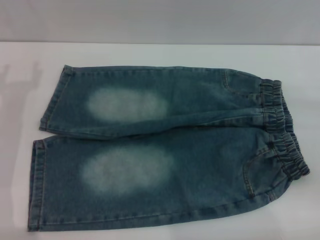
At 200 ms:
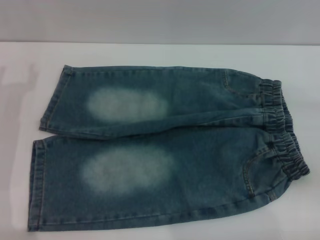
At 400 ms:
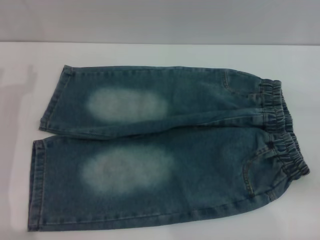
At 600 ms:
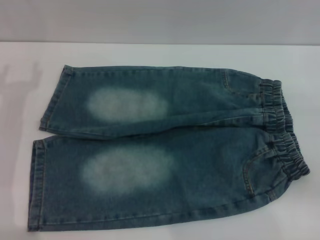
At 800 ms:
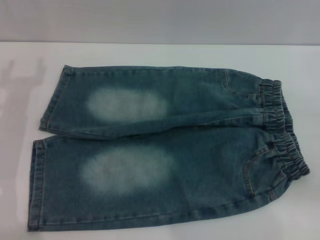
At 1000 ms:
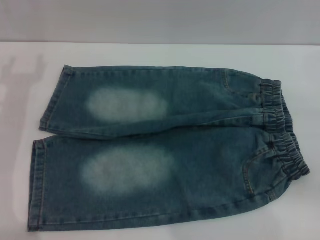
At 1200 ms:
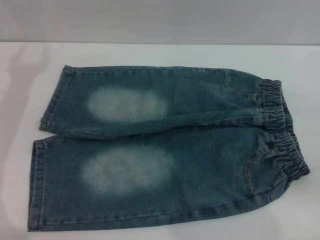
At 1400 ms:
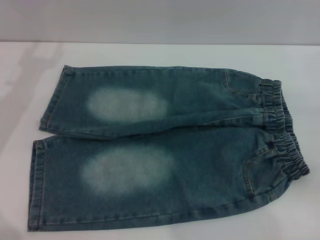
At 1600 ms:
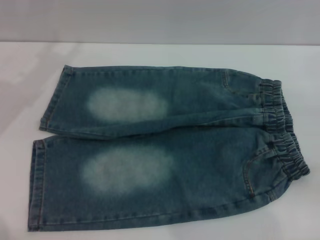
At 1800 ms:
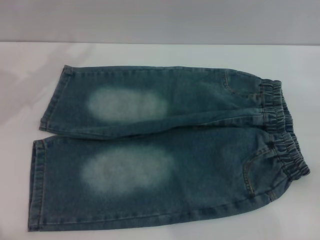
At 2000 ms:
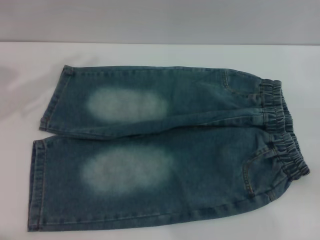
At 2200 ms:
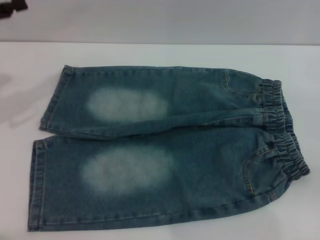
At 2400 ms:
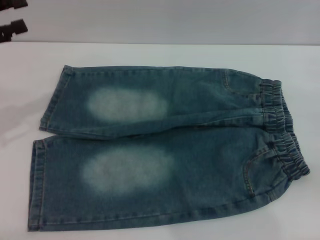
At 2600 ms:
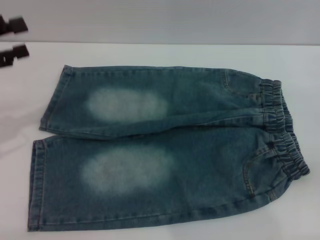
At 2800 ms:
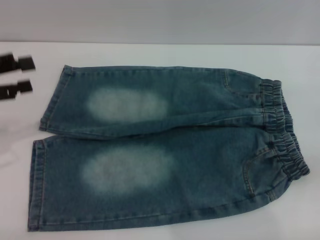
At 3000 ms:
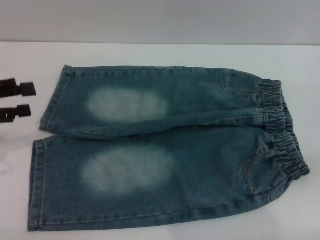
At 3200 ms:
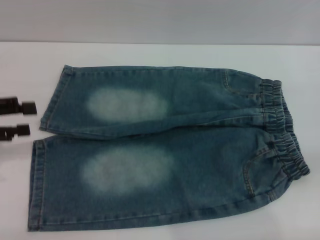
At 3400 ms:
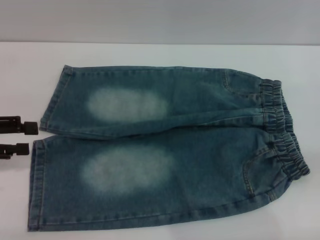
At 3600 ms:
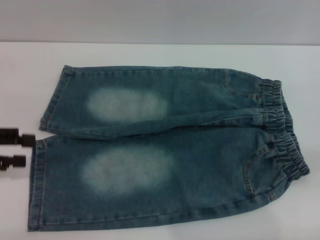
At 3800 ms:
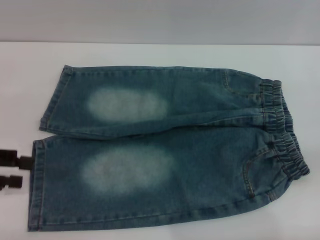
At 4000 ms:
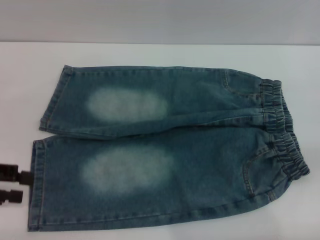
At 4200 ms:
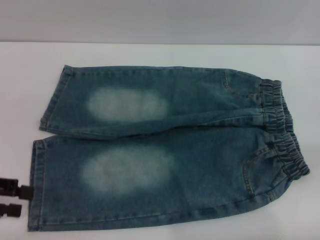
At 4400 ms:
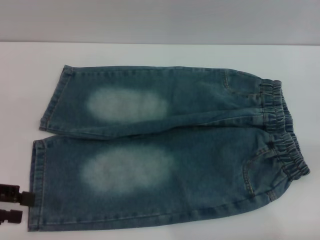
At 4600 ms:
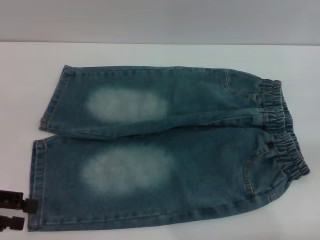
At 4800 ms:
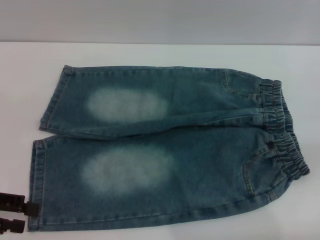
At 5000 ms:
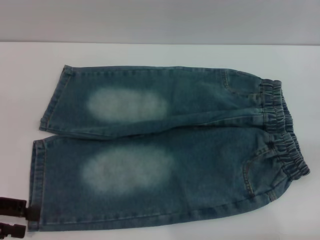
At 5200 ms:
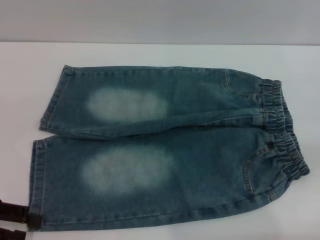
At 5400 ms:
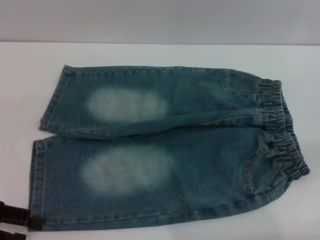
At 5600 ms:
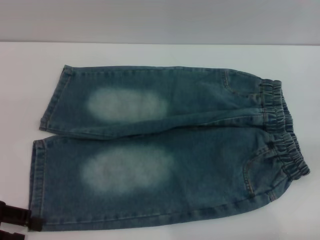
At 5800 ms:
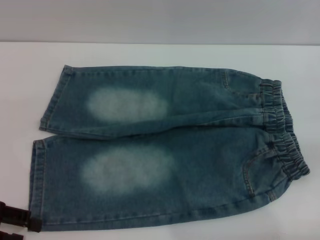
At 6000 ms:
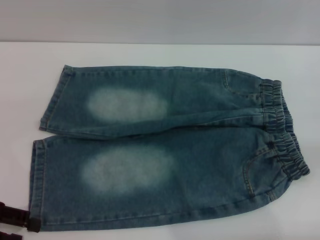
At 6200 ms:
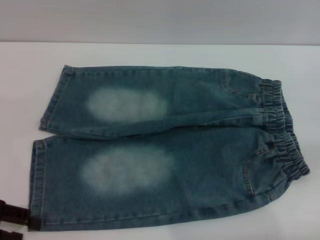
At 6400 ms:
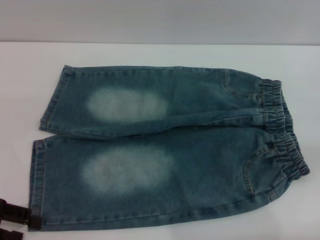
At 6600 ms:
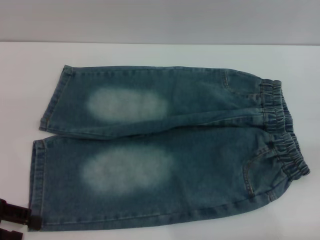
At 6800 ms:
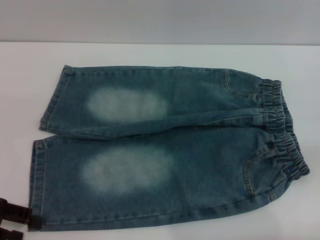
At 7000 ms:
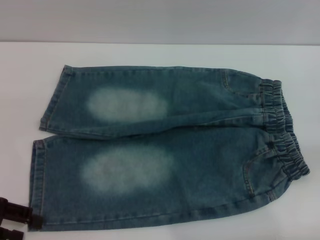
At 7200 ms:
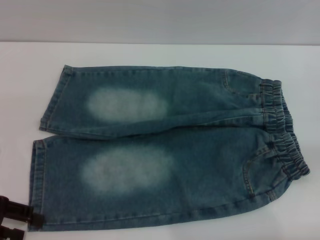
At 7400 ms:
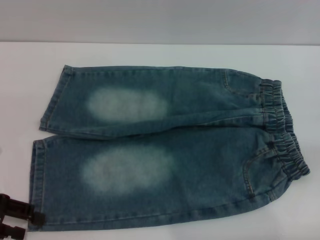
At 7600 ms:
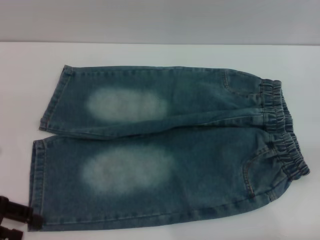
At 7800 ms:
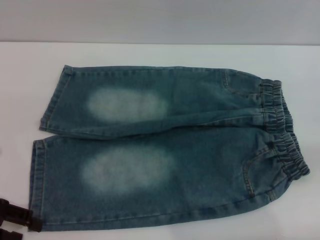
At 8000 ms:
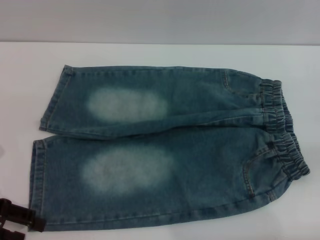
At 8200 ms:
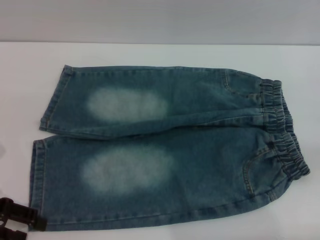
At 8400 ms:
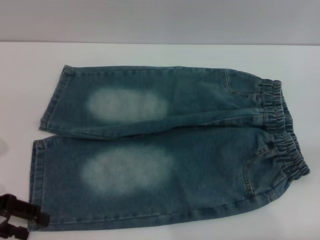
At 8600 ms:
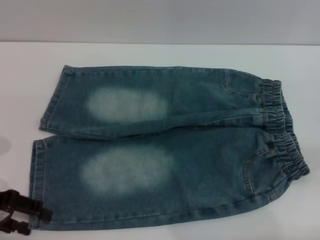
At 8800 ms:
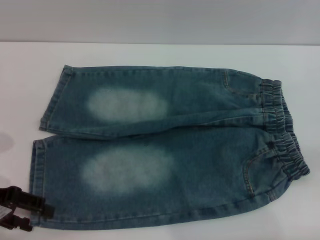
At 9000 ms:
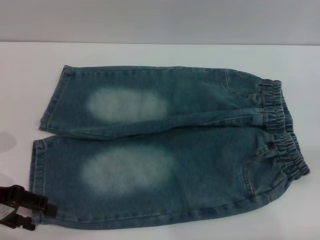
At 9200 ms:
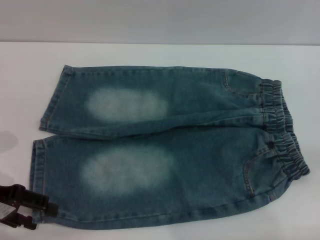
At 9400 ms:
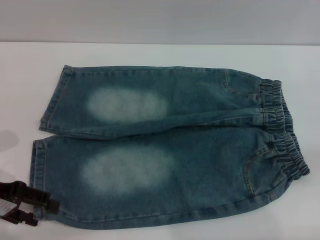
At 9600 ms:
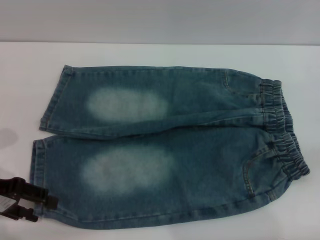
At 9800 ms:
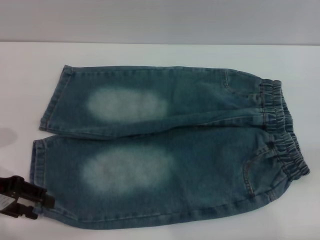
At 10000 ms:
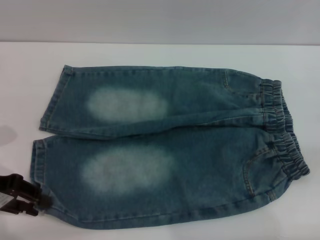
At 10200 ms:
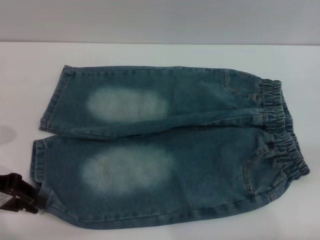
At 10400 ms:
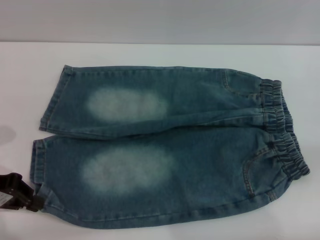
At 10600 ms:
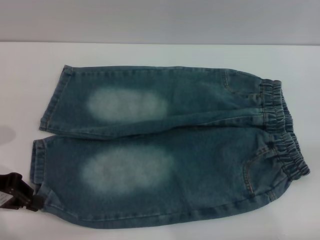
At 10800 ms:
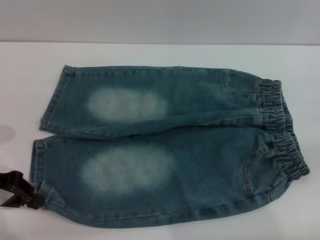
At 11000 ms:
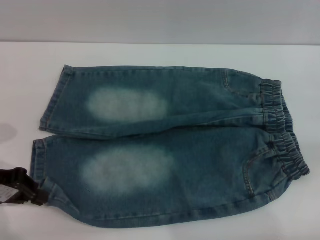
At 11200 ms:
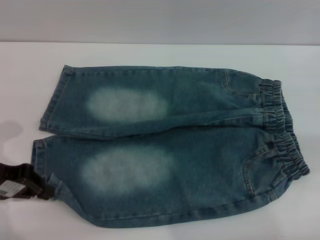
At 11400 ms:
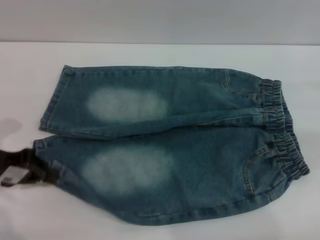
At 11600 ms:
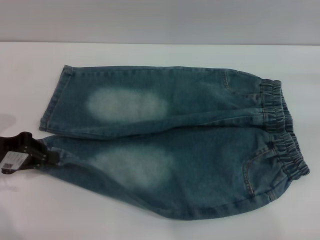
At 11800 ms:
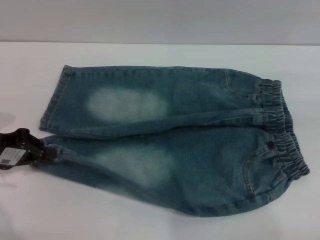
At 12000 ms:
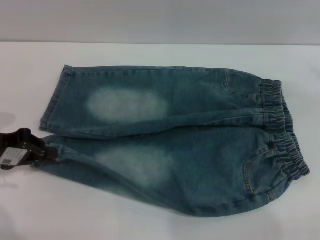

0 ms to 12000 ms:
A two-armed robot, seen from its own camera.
1600 ms to 3000 ms: The left gripper goes approximately 10 cm backward.
3000 ms to 4400 ms: The left gripper goes approximately 5 cm backward.
4400 ms to 6000 ms: The grippers make only small movements.
7600 ms to 9000 ms: There are only small adjustments of the grippers.
9000 ms to 10400 ms: The left gripper closes its fingers.
10400 ms to 12000 ms: The right gripper shifts approximately 10 cm upward and forward.

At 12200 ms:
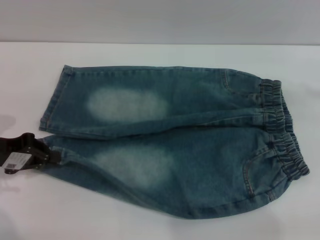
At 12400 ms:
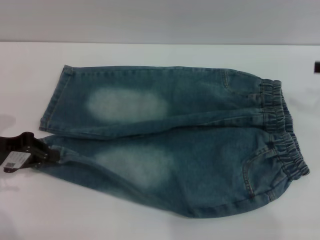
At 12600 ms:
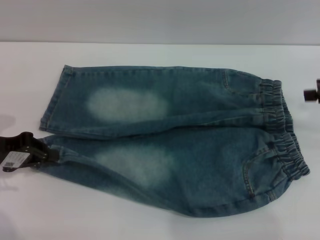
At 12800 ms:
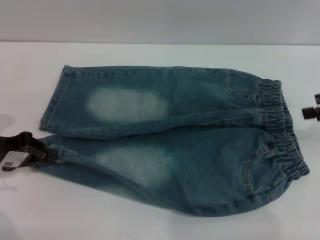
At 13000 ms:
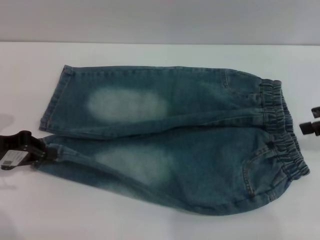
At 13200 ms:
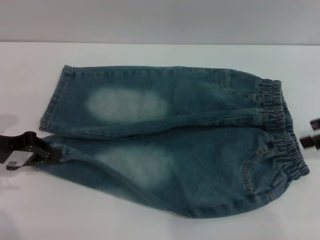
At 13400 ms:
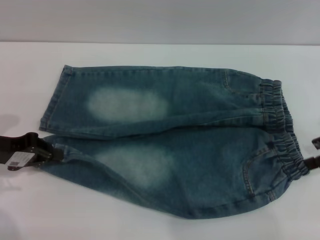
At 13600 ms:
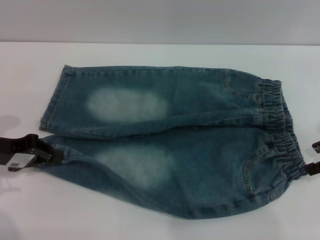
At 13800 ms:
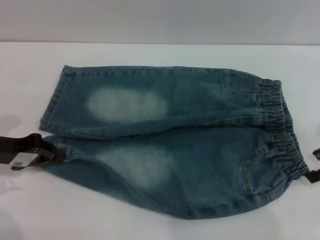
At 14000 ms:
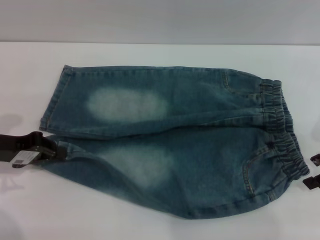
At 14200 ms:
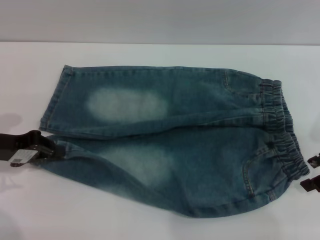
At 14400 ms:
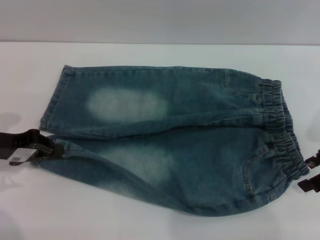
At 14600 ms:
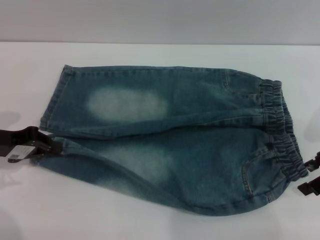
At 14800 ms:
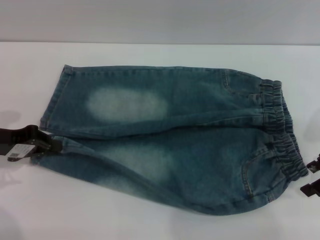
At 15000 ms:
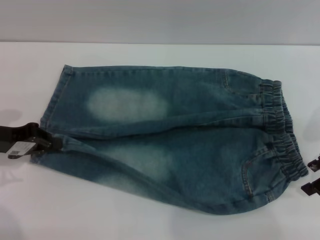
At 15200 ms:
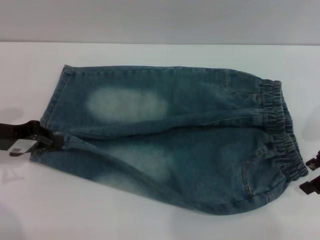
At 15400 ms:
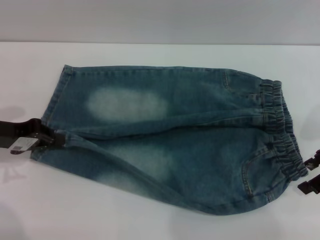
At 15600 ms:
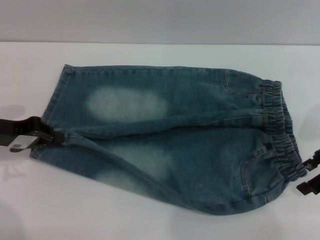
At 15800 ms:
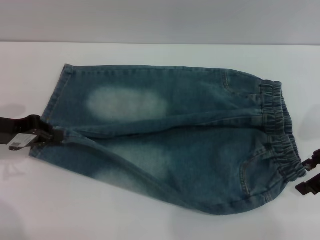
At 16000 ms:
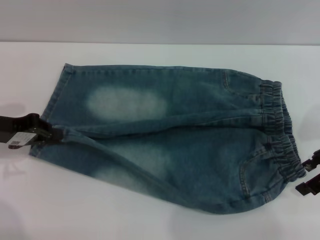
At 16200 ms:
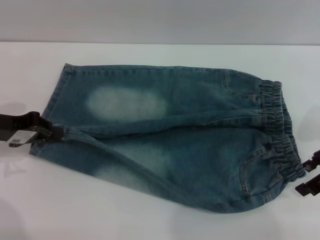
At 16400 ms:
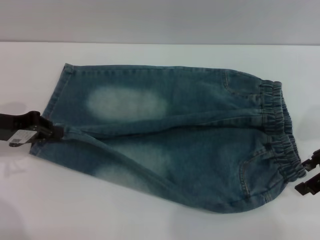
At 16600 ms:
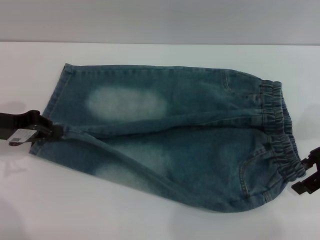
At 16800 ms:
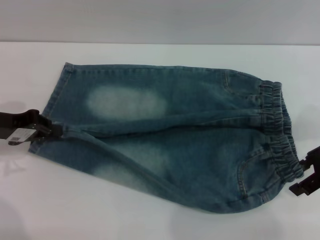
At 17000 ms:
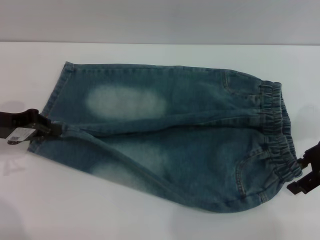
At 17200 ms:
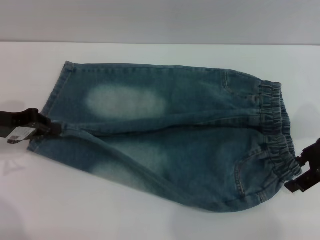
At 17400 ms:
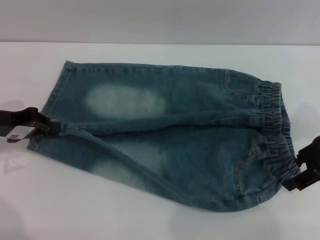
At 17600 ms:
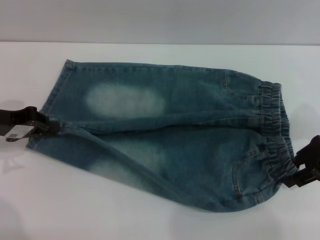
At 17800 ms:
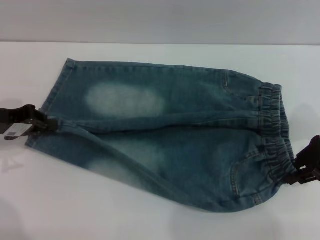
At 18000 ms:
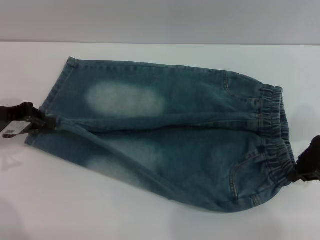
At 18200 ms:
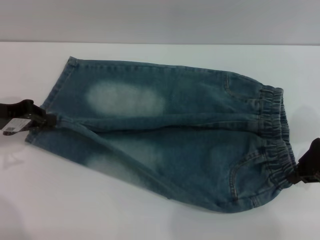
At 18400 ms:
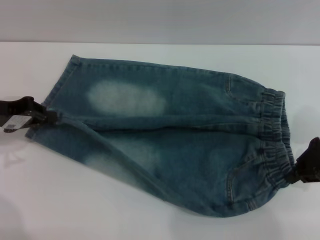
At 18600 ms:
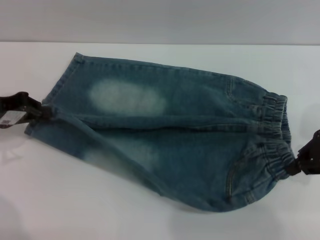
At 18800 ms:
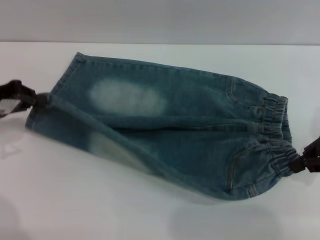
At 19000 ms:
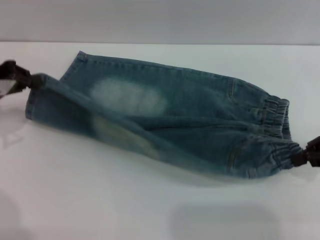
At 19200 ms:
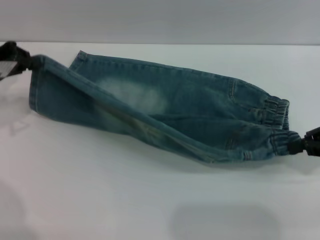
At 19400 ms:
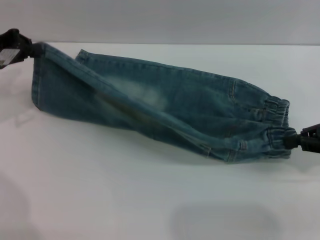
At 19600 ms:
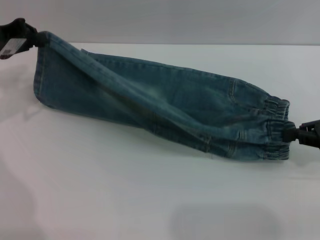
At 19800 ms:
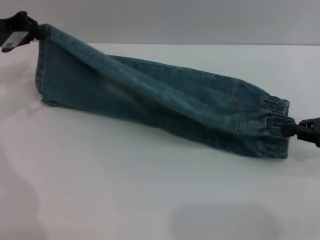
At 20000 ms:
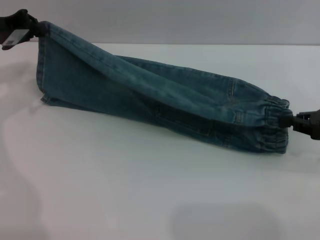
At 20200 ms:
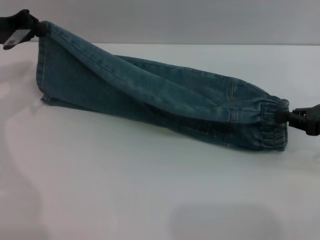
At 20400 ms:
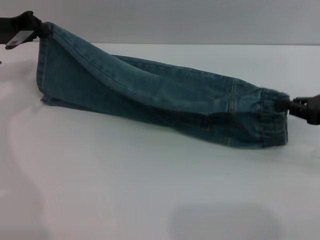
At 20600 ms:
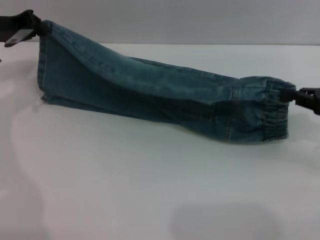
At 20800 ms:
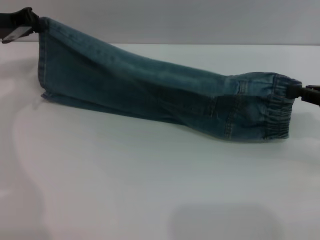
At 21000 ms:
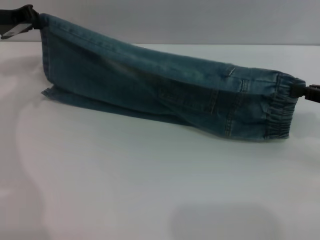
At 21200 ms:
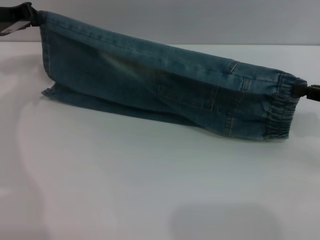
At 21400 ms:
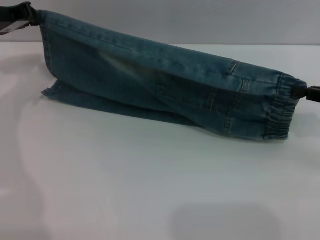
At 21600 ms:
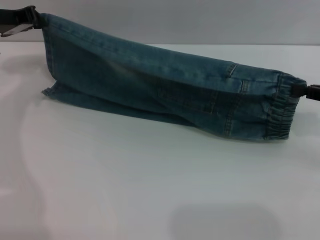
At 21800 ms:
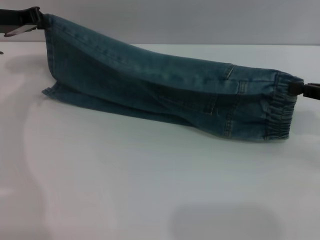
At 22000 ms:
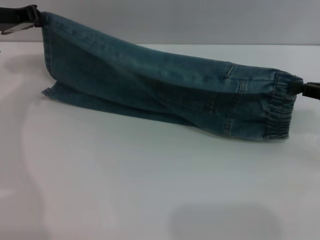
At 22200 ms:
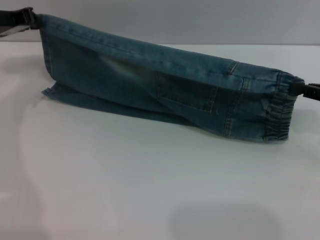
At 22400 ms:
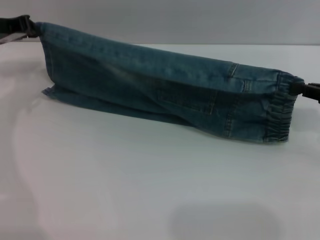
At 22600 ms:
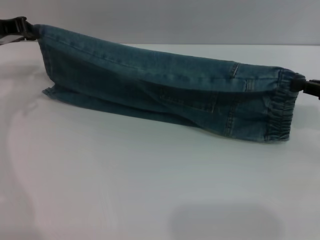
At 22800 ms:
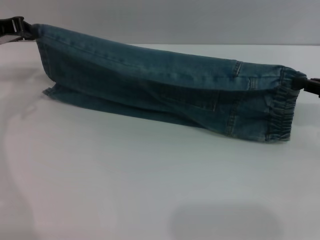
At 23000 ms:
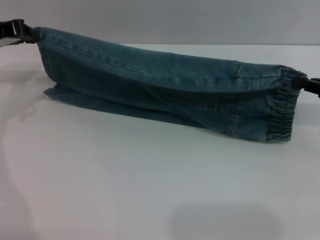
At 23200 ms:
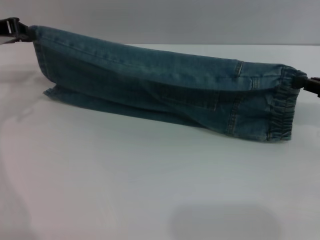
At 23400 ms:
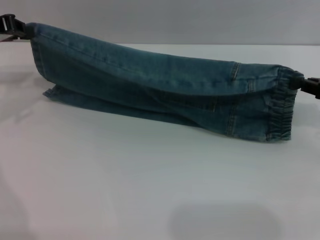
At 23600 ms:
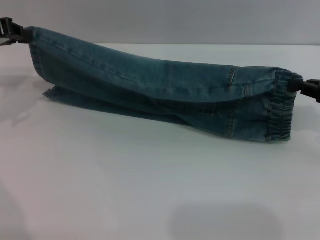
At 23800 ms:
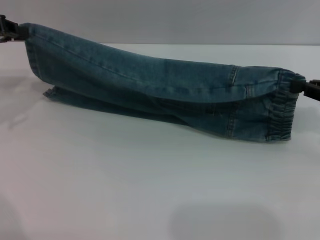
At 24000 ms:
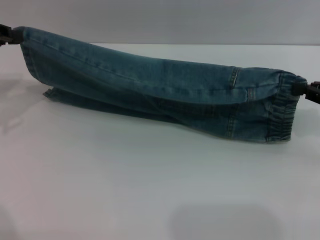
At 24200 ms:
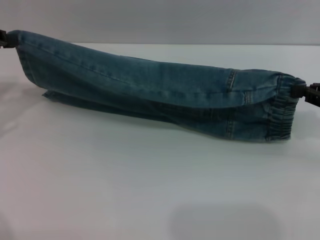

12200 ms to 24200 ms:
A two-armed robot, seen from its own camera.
12200 ms to 13800 ms: The right gripper travels to the left by about 5 cm.
13800 ms to 15200 ms: The grippers make only small movements.
15200 ms to 16600 ms: Both grippers stay about where they are.
16600 ms to 18200 ms: The right gripper closes up.
18200 ms to 19800 ms: The right gripper heads to the right, covering roughly 5 cm; the left gripper heads forward and upward, covering some 10 cm.
21200 ms to 22600 ms: The grippers move only a little.
22600 ms to 24200 ms: The left gripper moves backward, approximately 5 cm.
